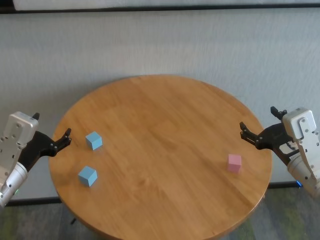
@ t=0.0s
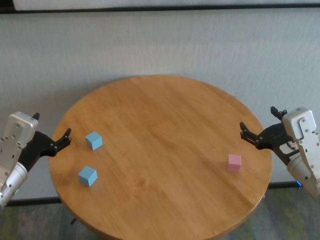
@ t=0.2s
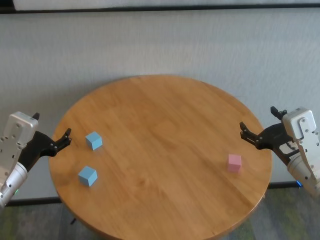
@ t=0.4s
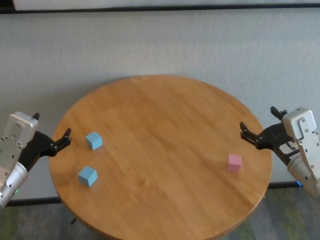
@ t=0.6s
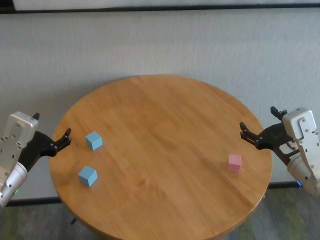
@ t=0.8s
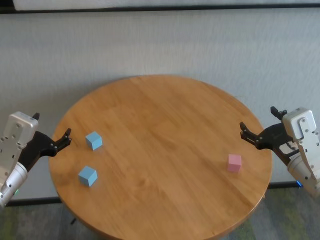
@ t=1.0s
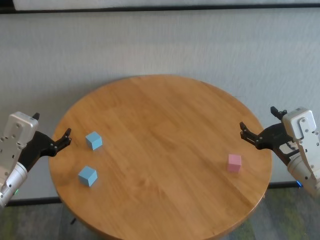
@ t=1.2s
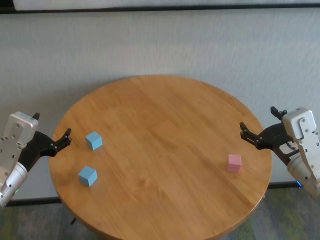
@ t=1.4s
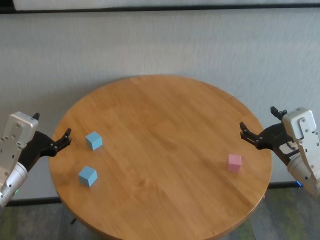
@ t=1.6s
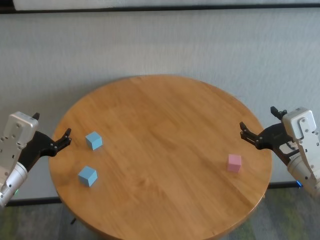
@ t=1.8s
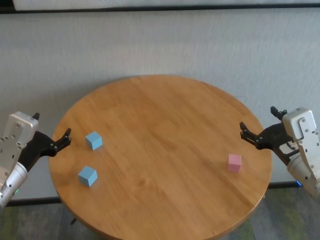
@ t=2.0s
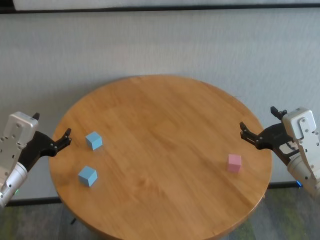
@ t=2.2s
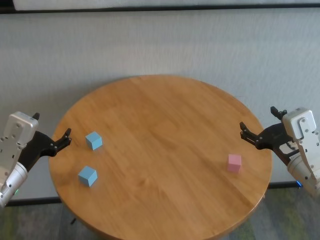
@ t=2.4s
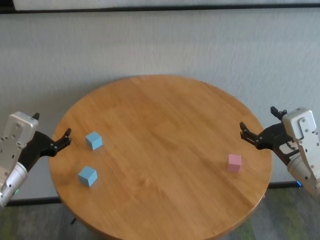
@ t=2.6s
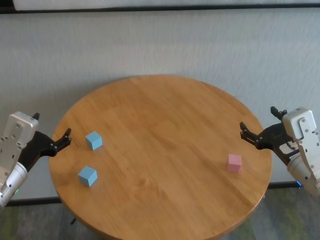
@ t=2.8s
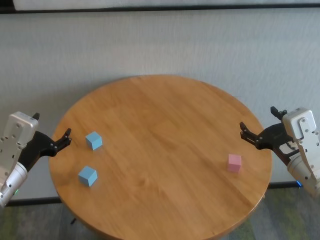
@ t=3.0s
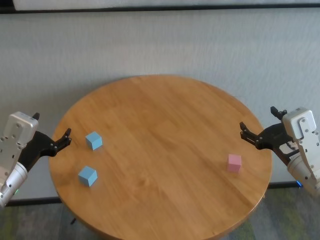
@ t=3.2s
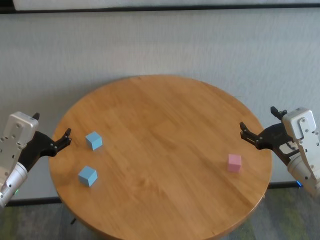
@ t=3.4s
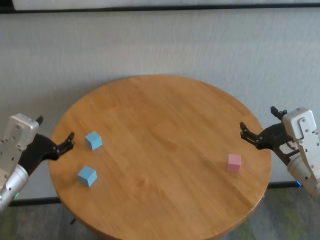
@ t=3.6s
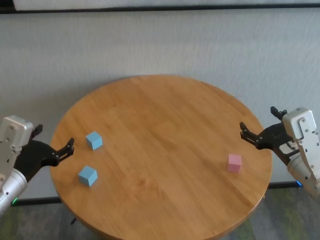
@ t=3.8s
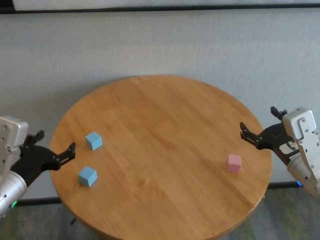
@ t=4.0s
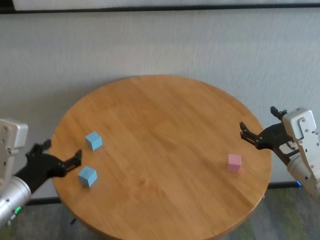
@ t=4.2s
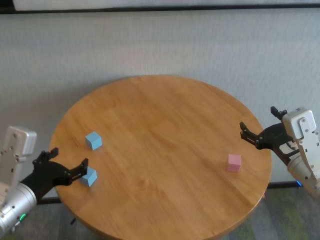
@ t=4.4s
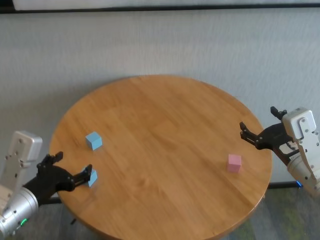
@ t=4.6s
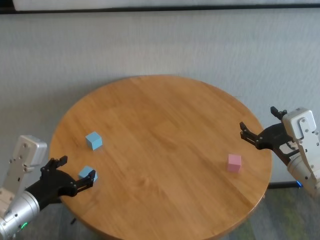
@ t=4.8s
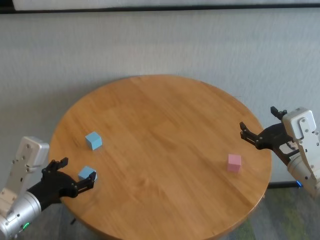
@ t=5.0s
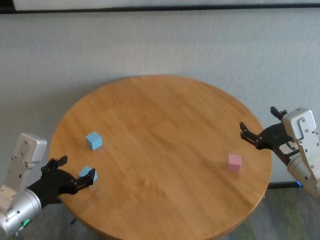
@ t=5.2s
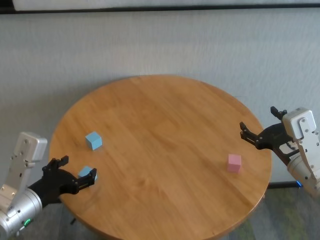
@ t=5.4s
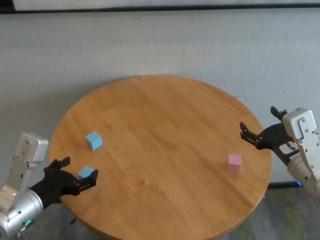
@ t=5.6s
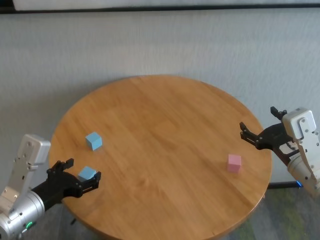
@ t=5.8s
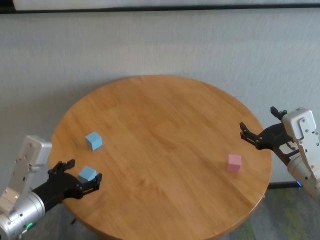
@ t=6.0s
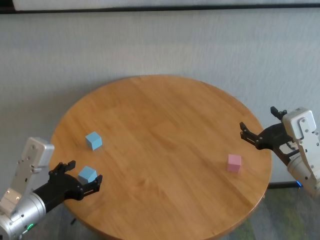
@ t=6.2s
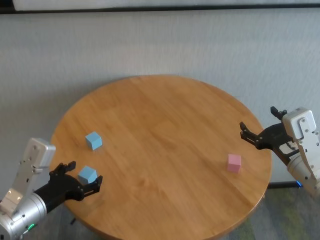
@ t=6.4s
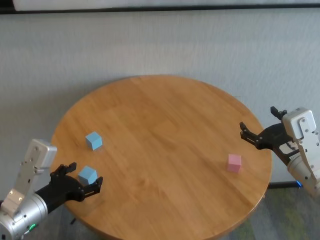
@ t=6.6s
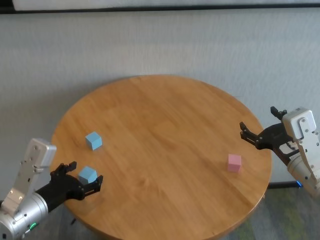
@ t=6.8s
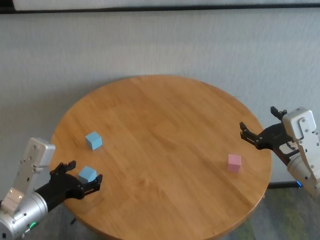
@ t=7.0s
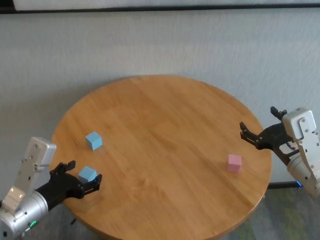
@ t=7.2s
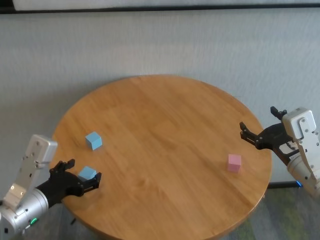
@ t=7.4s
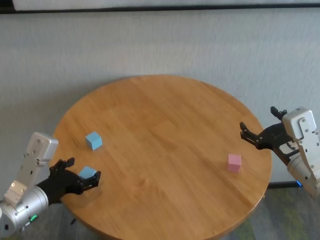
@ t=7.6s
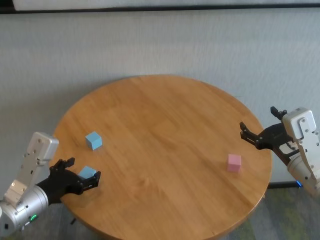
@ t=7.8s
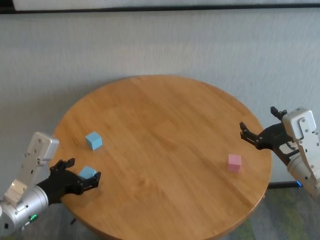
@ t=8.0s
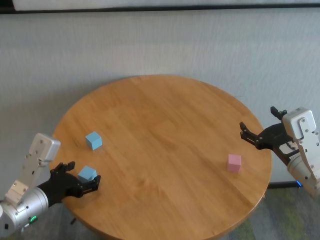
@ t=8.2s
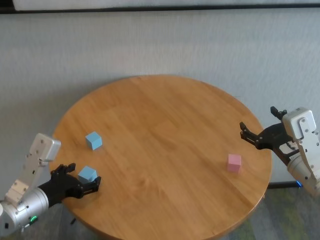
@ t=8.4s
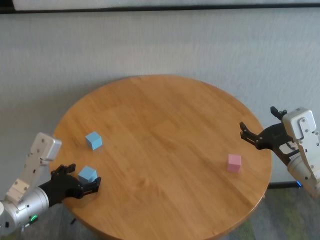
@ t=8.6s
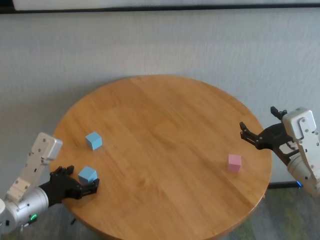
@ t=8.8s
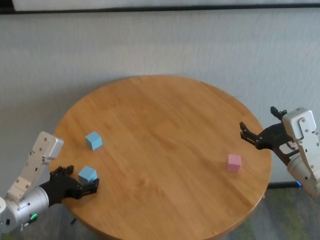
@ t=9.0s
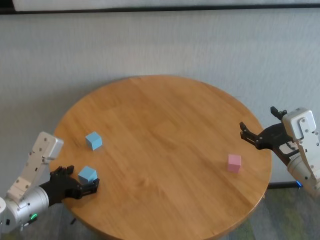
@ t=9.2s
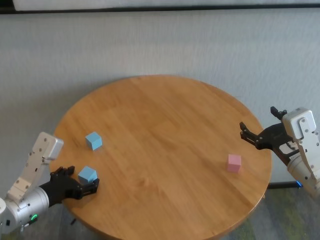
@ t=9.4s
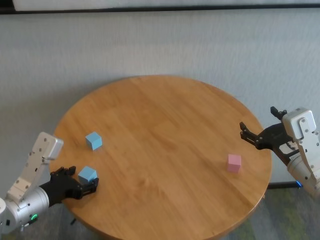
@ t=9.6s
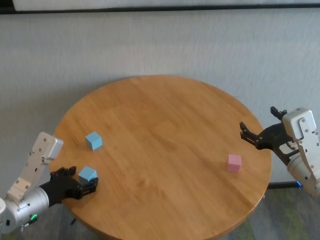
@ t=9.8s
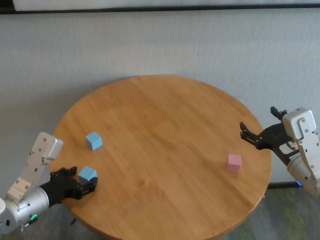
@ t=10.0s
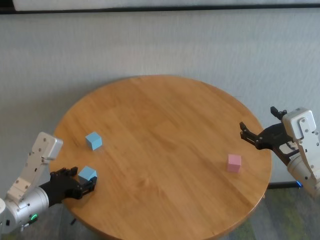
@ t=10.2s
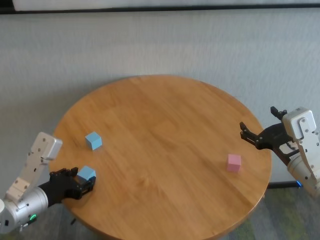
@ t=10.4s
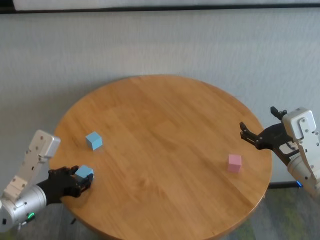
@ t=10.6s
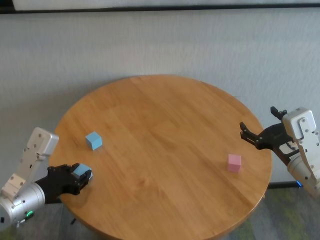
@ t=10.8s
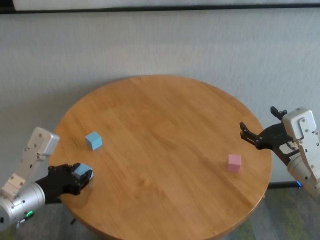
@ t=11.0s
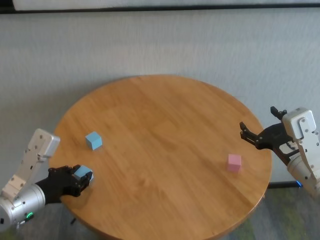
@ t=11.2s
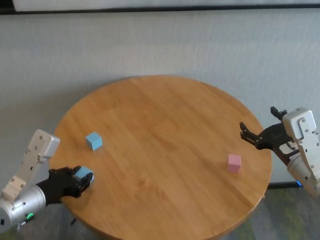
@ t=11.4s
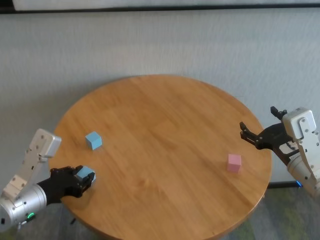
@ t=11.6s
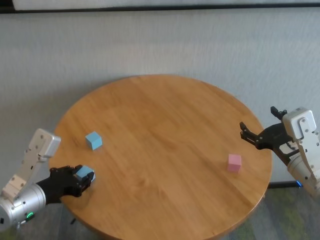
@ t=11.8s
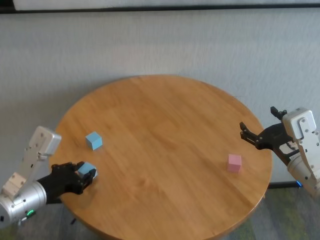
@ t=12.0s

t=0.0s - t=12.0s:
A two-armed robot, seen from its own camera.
Task of the whole recording: stack building blocks on the table.
Step, t=0.0s - t=10.6s: Grasp the blue building block with left gripper.

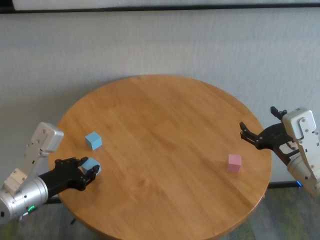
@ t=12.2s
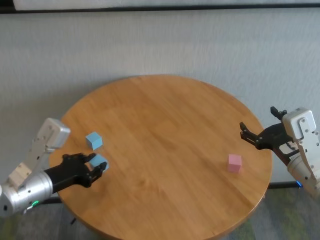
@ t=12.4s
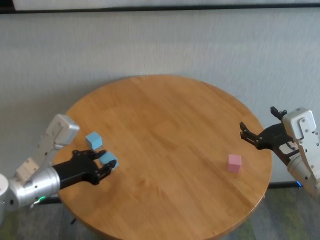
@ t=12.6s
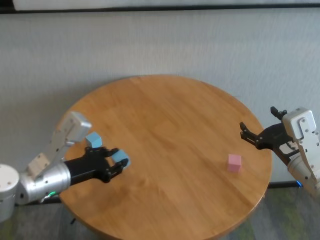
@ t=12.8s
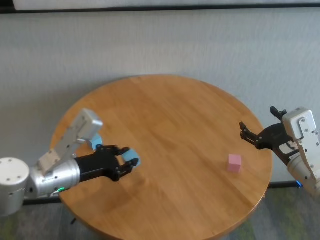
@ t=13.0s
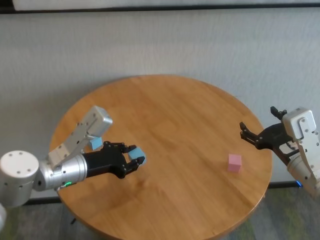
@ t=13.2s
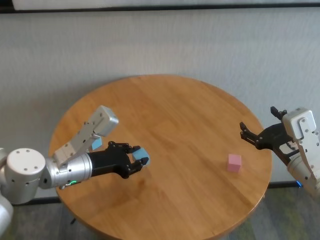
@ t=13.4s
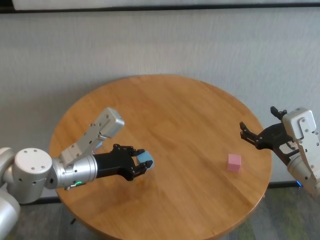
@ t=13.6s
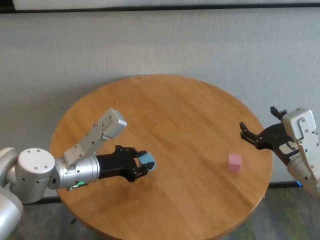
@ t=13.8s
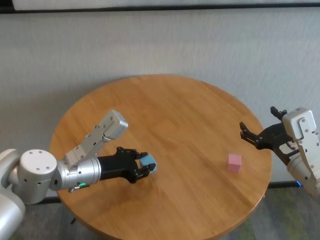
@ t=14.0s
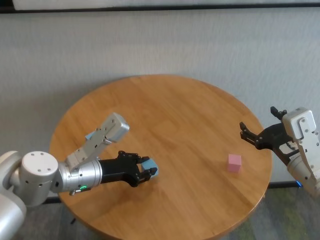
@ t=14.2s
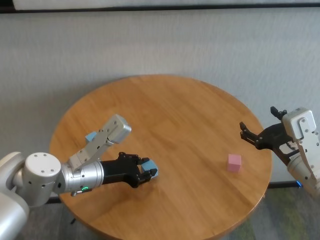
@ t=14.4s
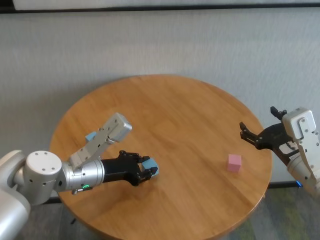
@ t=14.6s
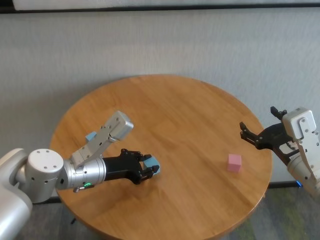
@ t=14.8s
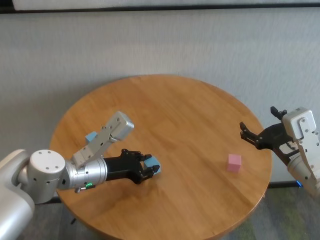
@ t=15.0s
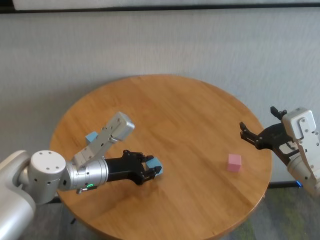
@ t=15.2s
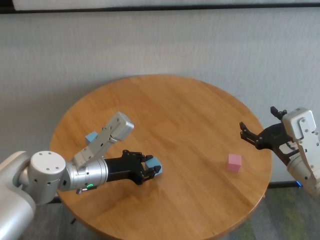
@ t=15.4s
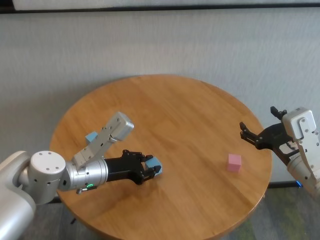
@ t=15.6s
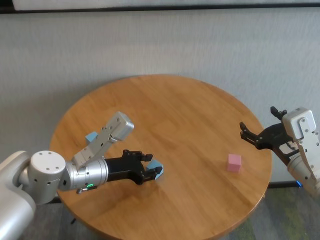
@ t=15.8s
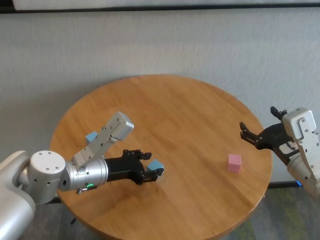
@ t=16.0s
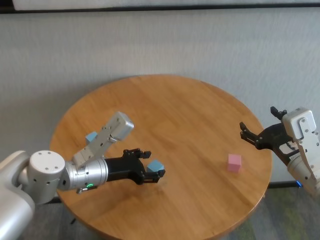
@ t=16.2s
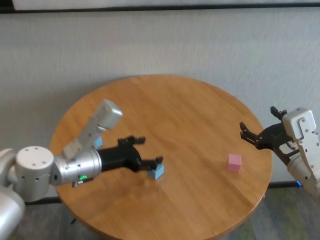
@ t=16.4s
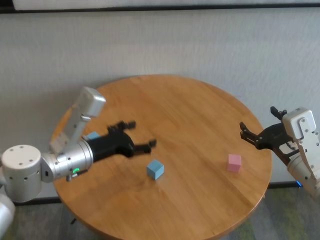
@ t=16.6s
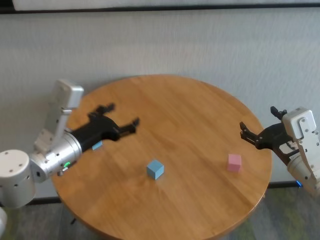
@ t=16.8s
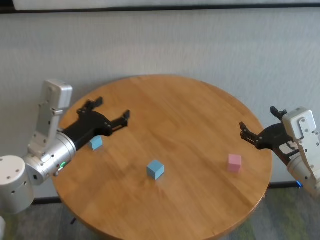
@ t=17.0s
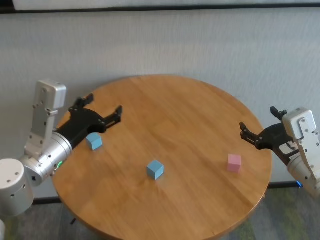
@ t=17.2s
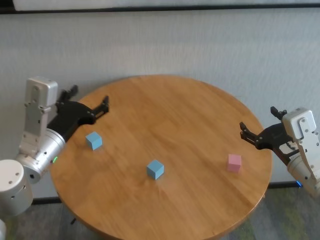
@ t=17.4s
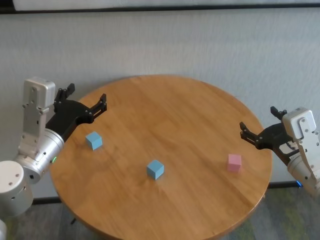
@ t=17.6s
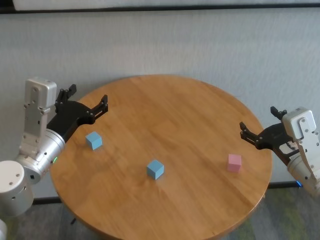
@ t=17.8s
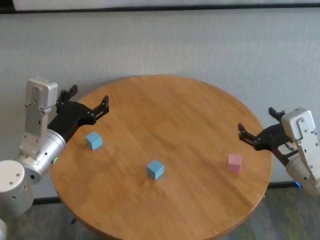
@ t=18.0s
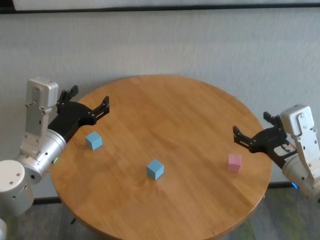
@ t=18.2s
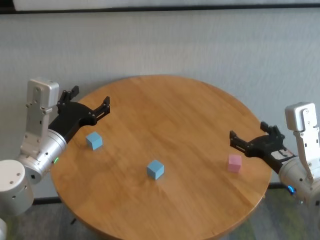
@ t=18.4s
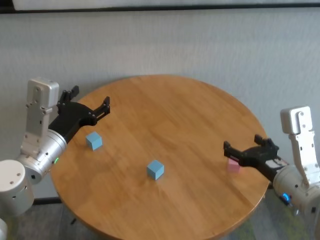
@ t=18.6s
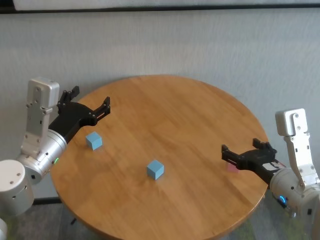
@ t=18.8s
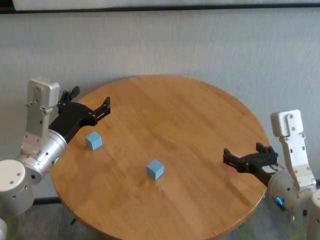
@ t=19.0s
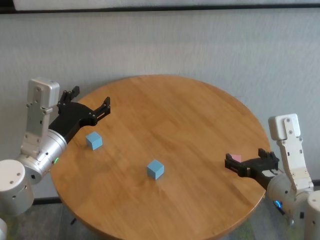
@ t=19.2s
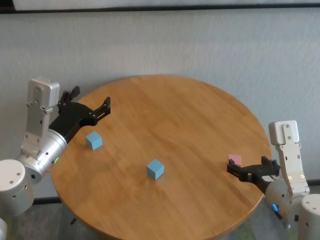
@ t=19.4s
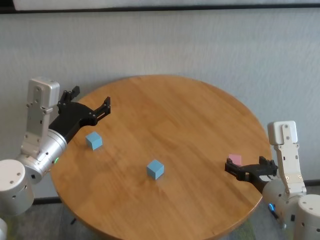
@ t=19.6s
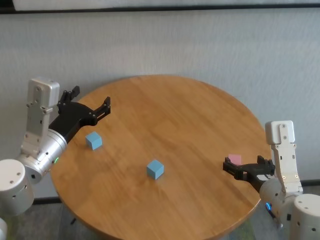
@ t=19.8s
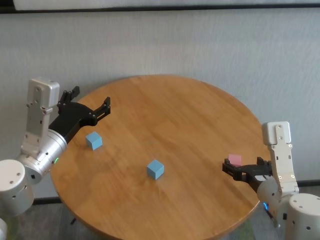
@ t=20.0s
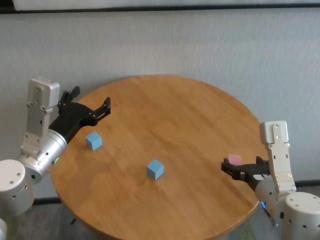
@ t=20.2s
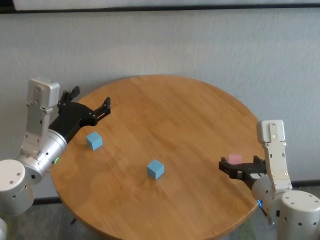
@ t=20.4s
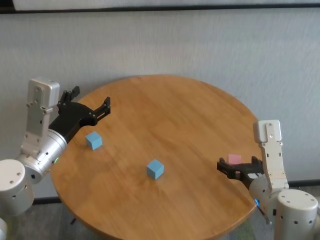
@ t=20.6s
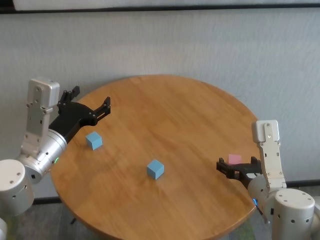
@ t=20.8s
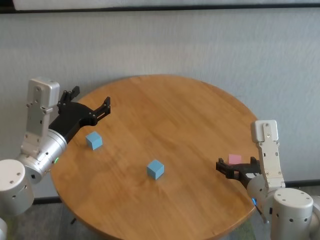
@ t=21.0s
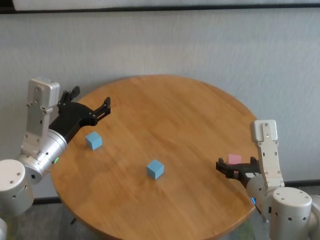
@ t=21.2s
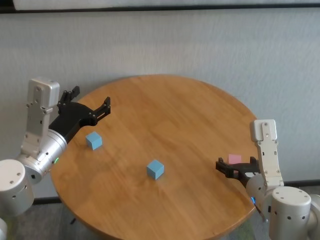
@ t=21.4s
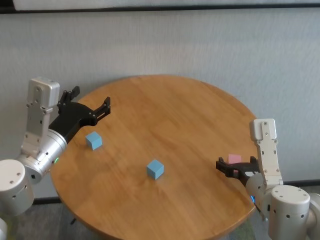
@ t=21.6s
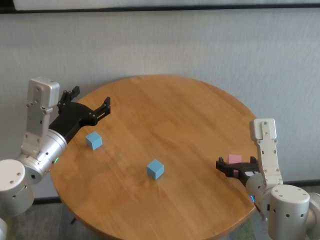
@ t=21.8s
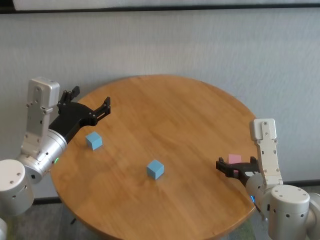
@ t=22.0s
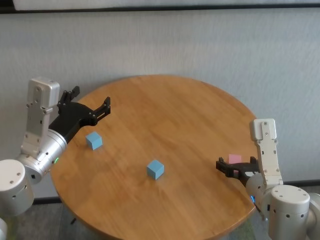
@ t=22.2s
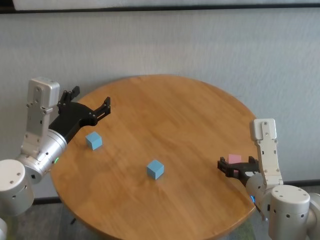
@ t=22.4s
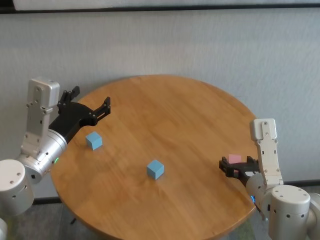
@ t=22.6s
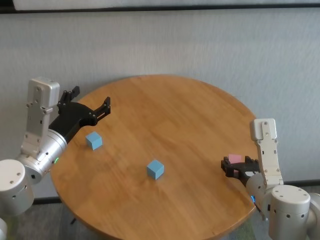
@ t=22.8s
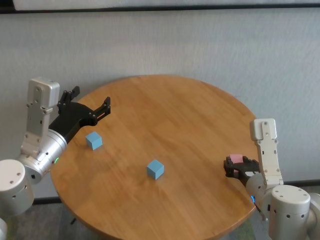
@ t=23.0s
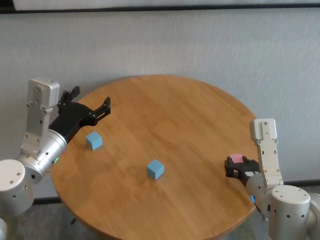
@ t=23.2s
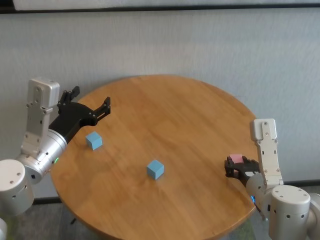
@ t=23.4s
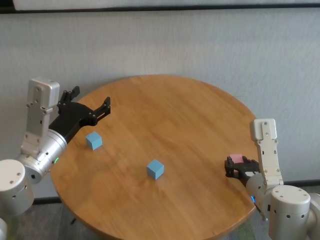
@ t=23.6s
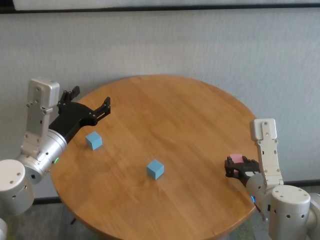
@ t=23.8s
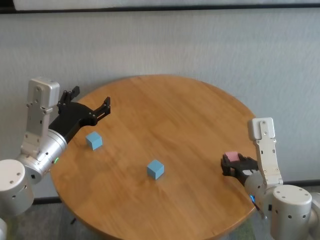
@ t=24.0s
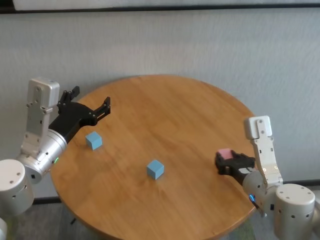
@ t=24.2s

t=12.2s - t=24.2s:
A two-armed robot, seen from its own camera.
Task of the whole recording: stack building blocks on the table.
Step, t=12.2s - t=16.2s: Place the blue building block in the center of table with left gripper.
Step, t=16.4s - t=23.6s: Grasp the pink building block with right gripper.
